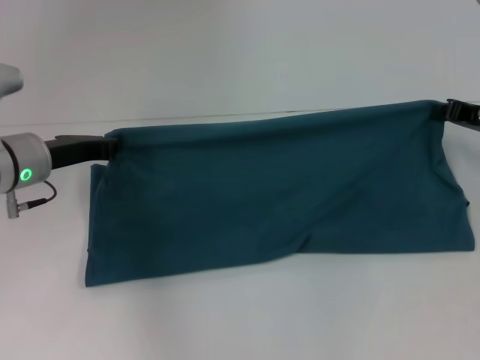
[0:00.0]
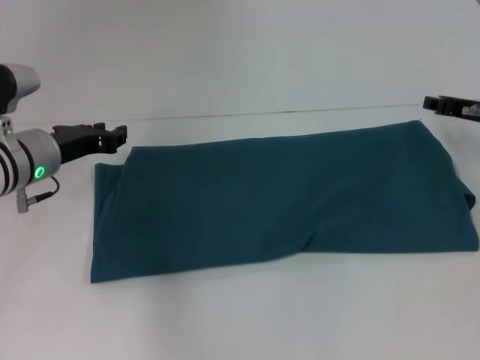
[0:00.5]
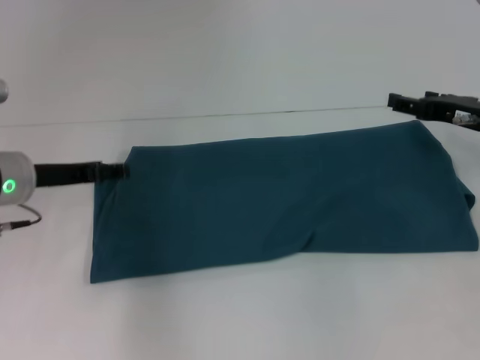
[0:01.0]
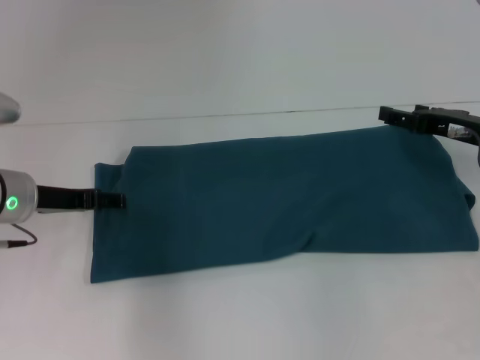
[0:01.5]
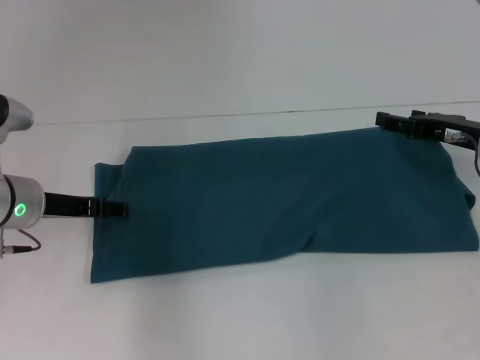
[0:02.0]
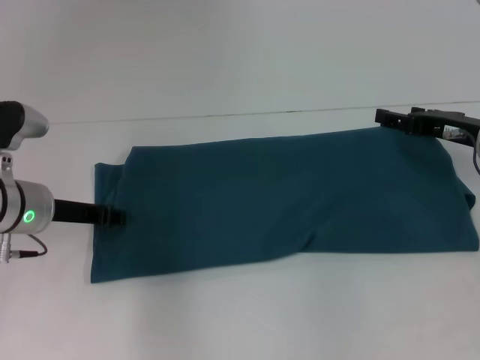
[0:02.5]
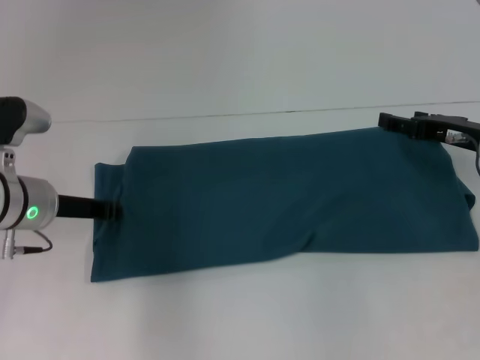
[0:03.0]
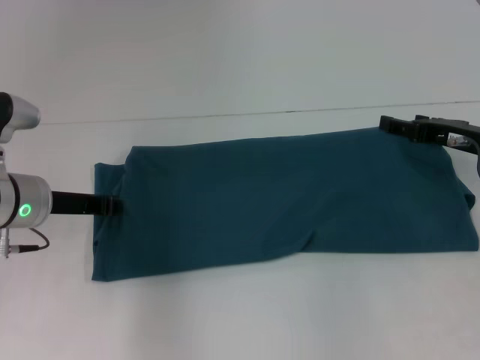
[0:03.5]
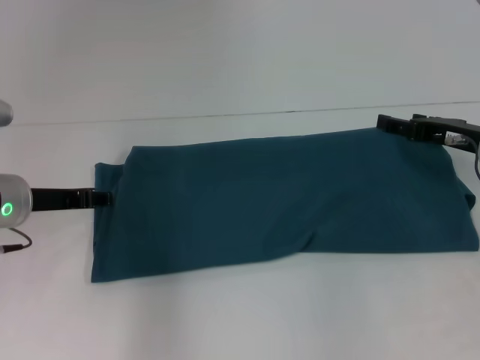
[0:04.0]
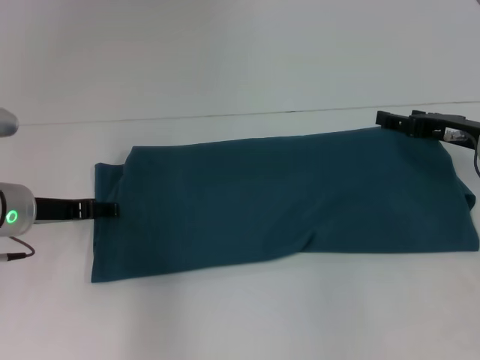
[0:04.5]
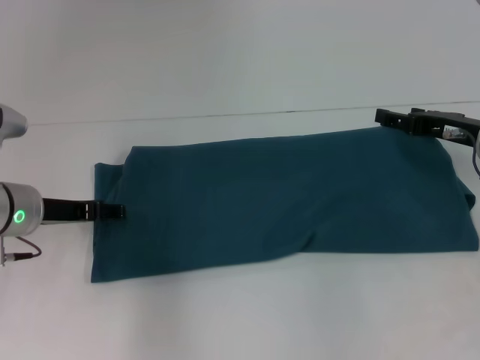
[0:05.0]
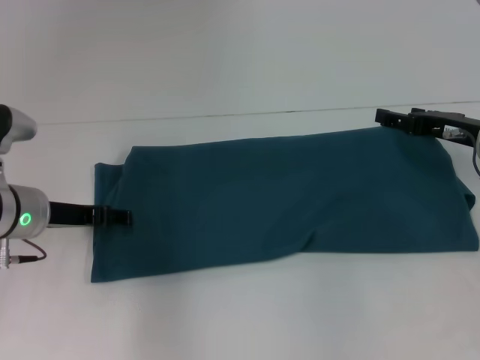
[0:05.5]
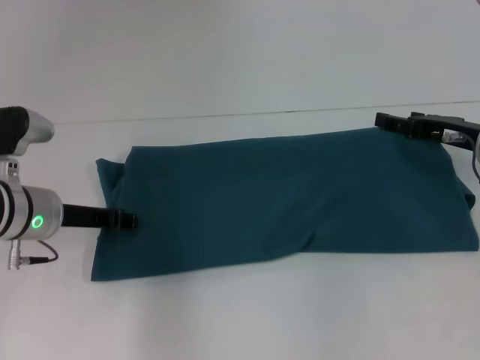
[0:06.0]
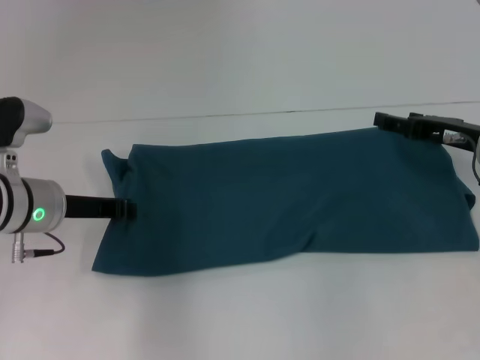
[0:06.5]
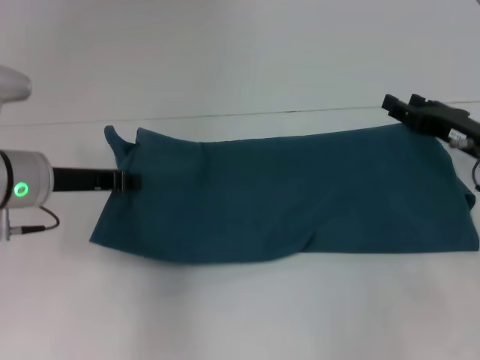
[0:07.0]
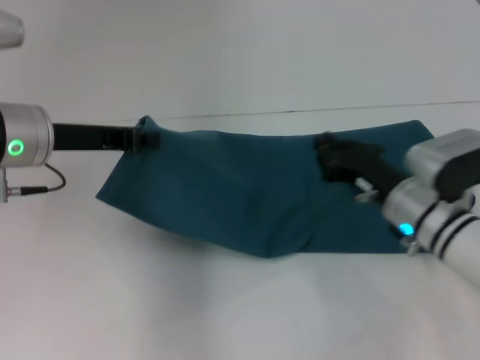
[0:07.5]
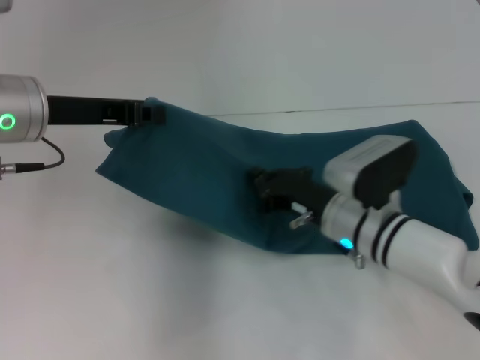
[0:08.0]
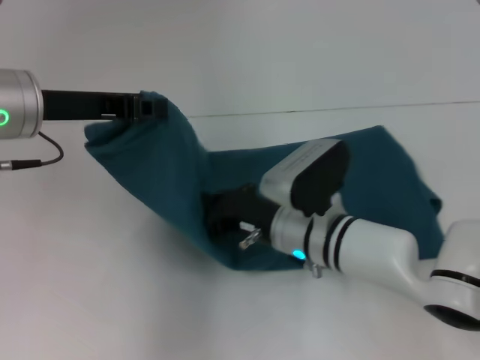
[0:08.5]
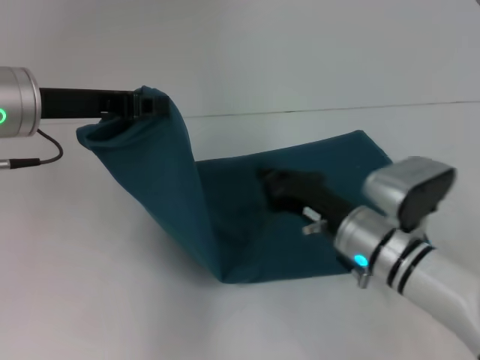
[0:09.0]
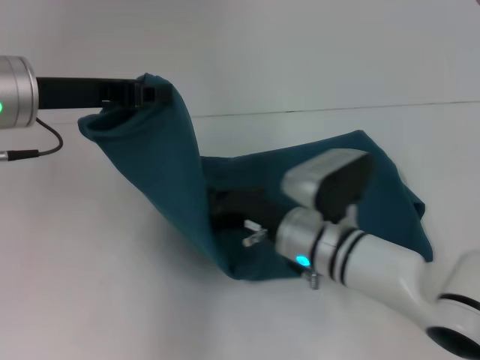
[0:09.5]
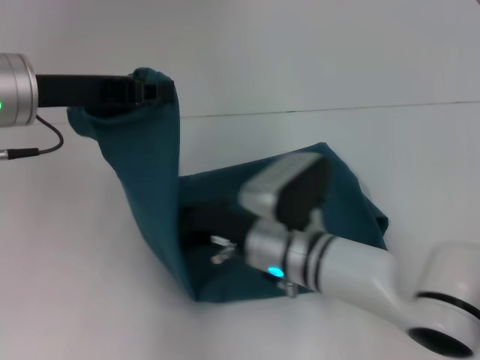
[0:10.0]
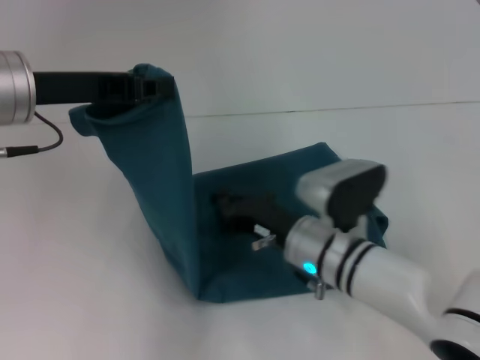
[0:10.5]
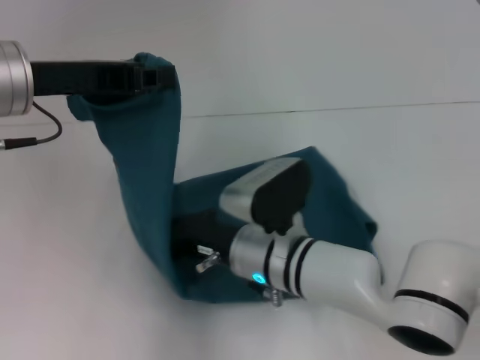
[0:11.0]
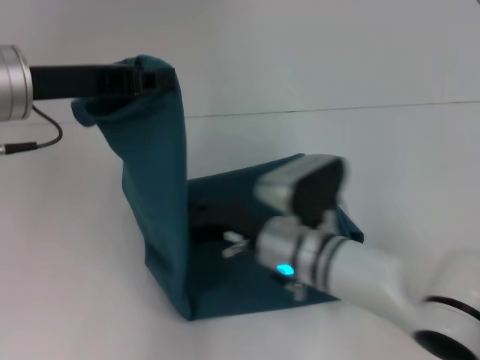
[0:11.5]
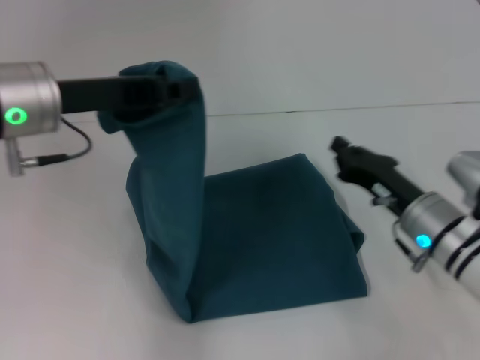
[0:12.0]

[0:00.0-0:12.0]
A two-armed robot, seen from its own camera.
Step, 0:01.0 to 0:11.5: Press the middle of the clothes with your right hand.
0:00.0 to 0:02.0: The left gripper opens up. Meanwhile the right gripper opens up.
0:02.0 to 0:04.0: The left gripper closes.
0:04.0 to 0:06.0: There are only small adjustments of the grippers.
0:06.0 to 0:08.0: The right gripper heads to the left and downward, covering approximately 15 cm, and closes its fingers. The left gripper shifts some 15 cm upward, and closes up.
0:08.0 to 0:10.0: The right gripper swings left and right, approximately 10 cm each way, with 2 reversals.
0:10.0 to 0:12.0: The right gripper moves left and right over approximately 15 cm, changing direction 2 times.

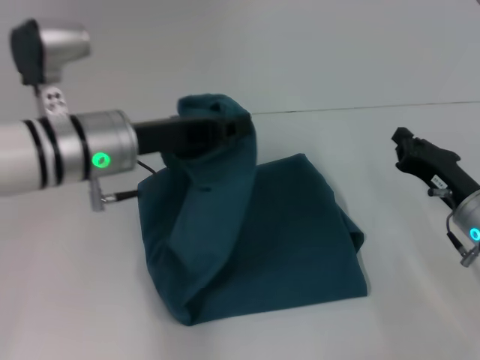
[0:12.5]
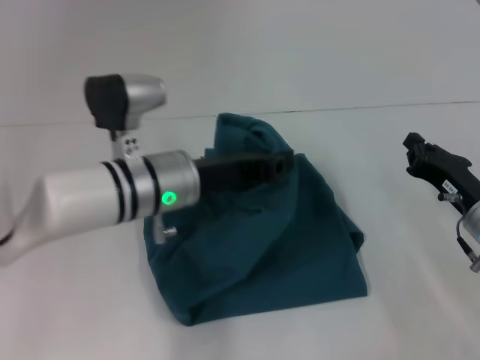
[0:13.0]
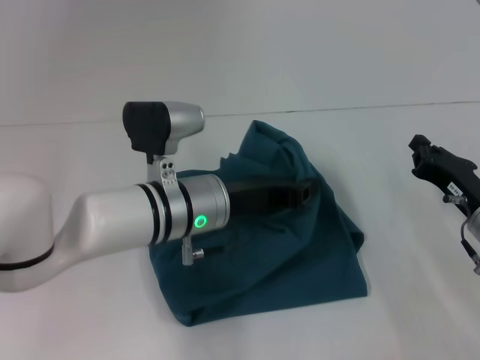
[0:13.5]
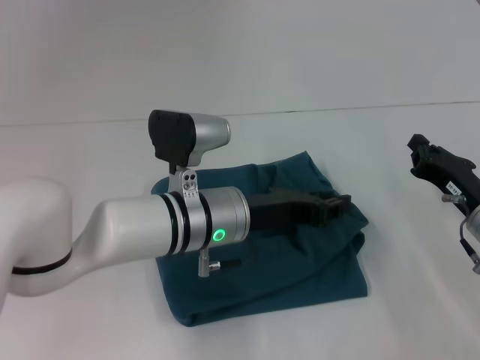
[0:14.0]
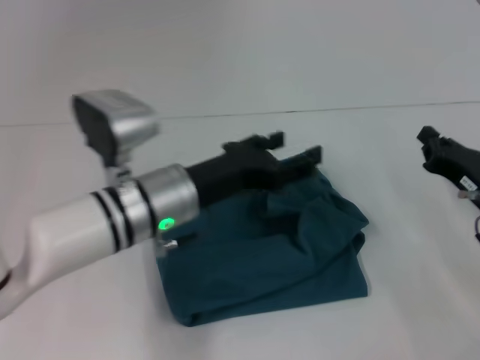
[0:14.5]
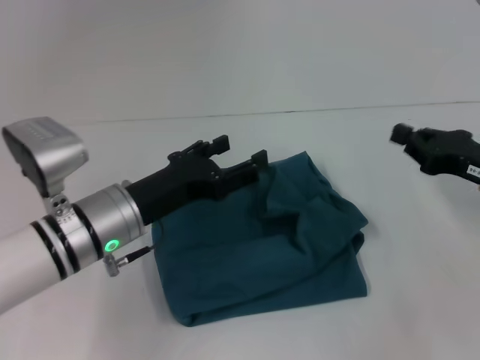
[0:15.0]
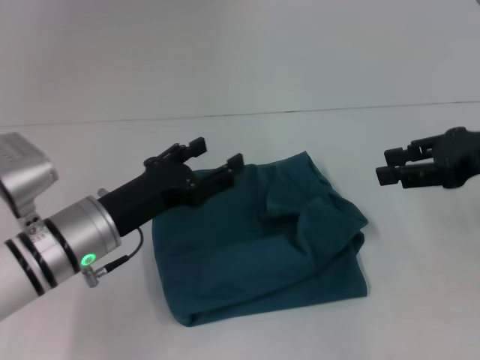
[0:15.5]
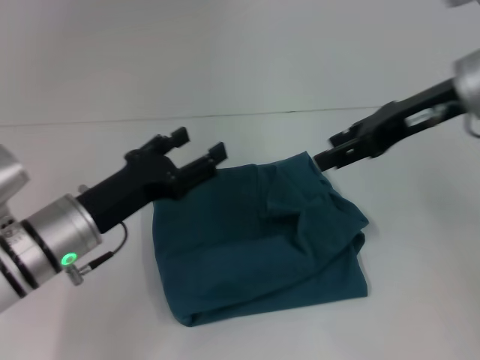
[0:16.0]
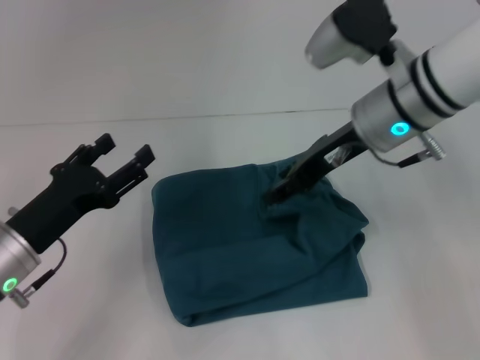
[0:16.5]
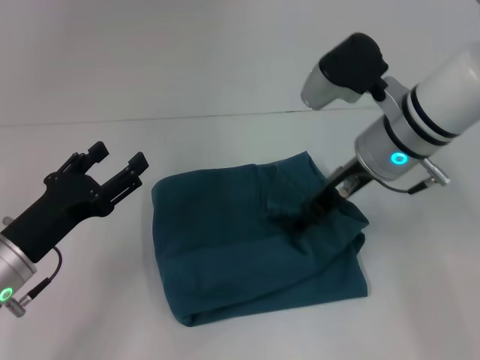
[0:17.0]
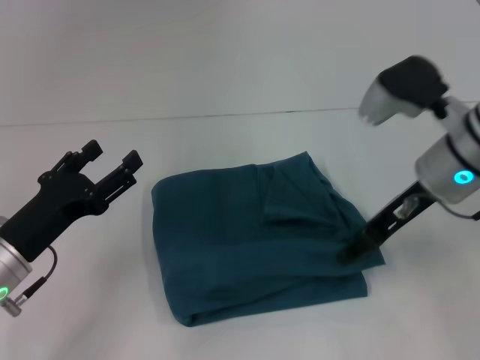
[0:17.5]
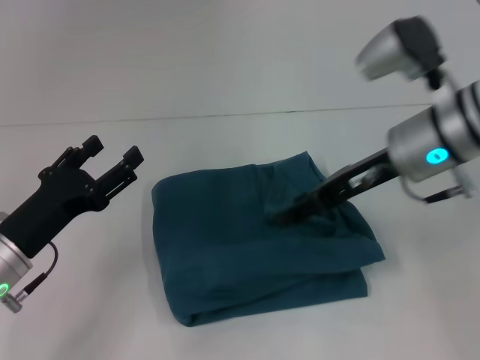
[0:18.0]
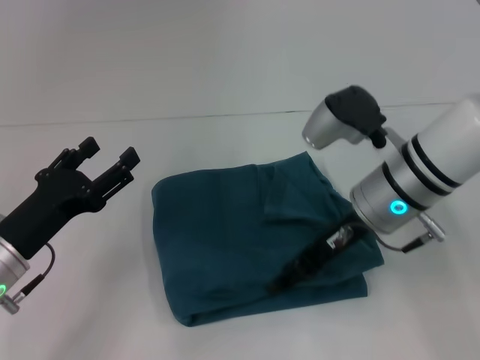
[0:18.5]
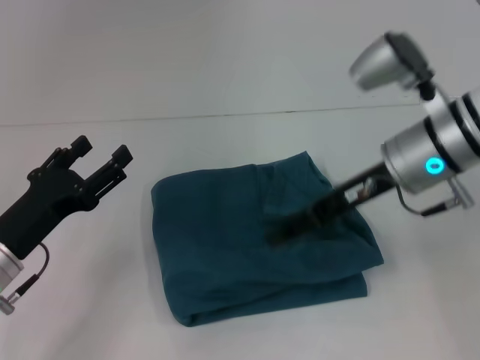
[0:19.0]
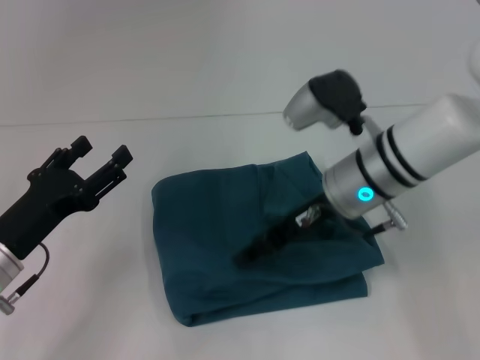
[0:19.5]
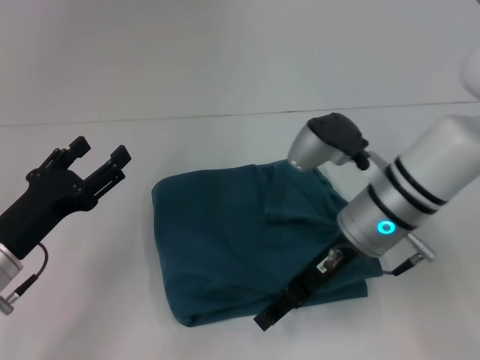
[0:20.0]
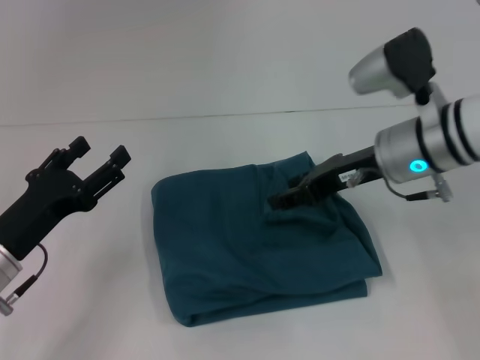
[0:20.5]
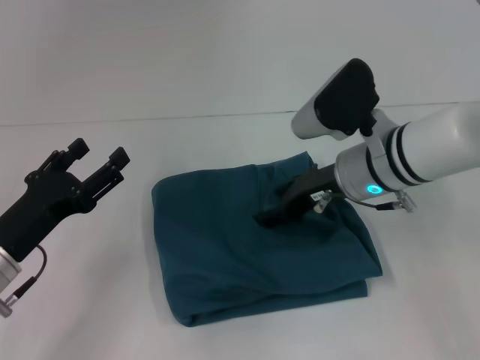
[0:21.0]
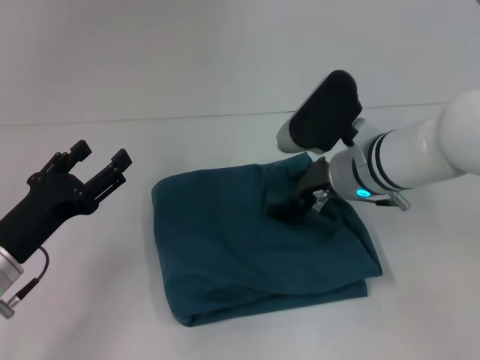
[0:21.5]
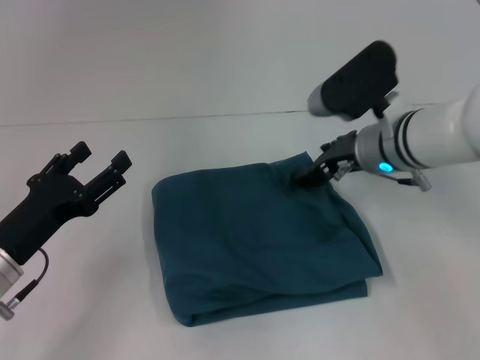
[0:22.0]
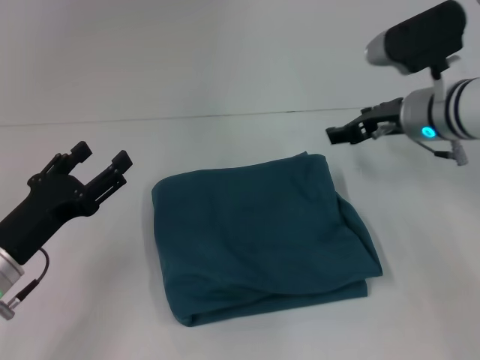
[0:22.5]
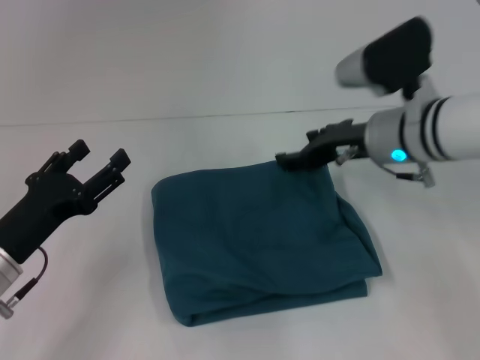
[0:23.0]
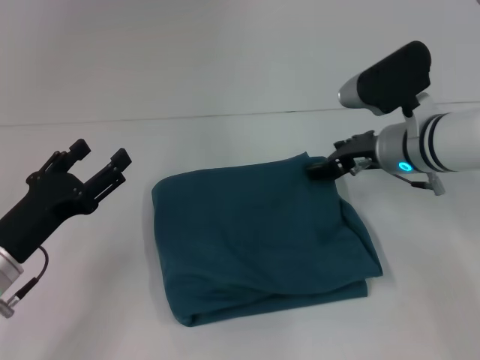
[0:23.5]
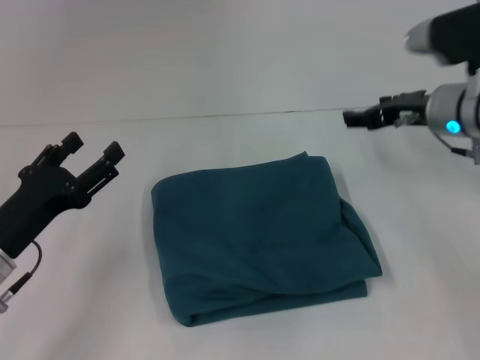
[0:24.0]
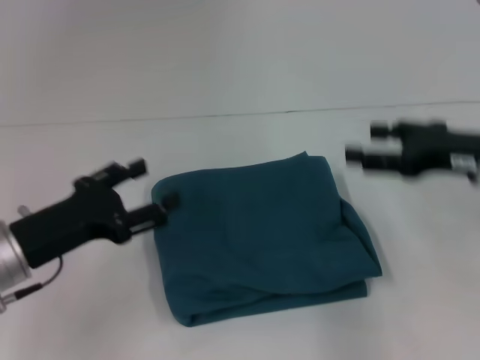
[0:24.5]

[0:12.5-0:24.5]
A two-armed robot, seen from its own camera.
Step, 0:12.5 to 0:14.0: Fold the clothes to the left.
0:12.5 to 0:14.5: The left gripper shifts about 5 cm downward, and opens.
0:14.5 to 0:16.5: The left gripper goes some 15 cm to the left. Meanwhile the right gripper goes some 25 cm upward, to the left and forward, and opens its fingers.
0:16.5 to 0:18.5: The right gripper travels downward by approximately 5 cm.
0:22.5 to 0:24.5: The right gripper travels backward and to the right by about 10 cm.

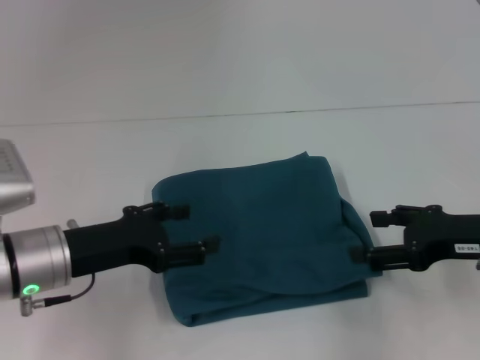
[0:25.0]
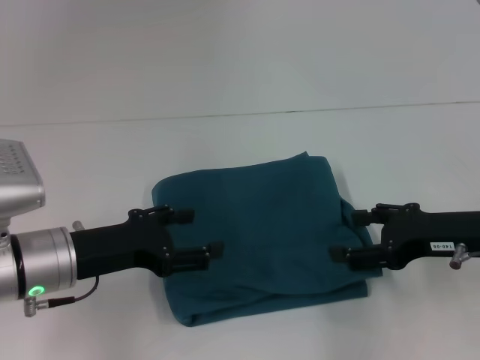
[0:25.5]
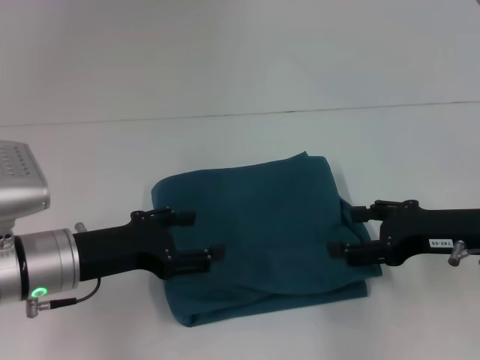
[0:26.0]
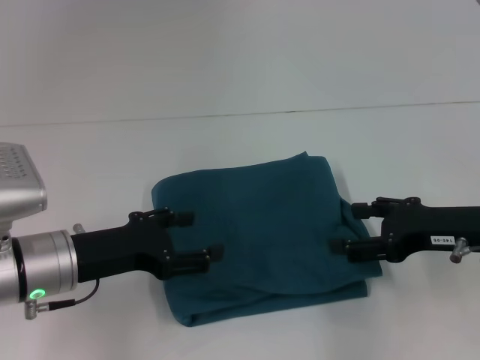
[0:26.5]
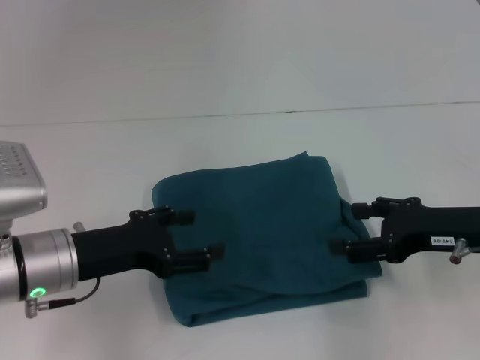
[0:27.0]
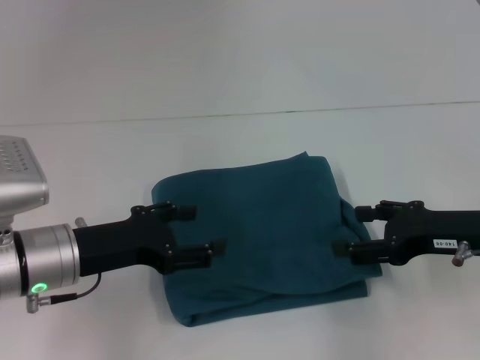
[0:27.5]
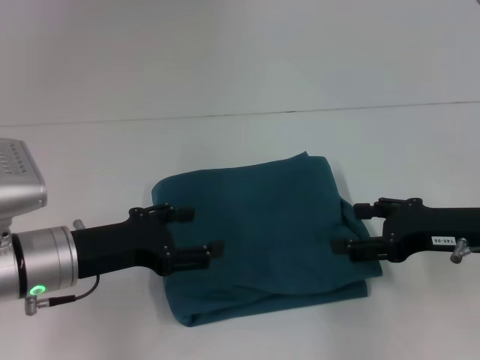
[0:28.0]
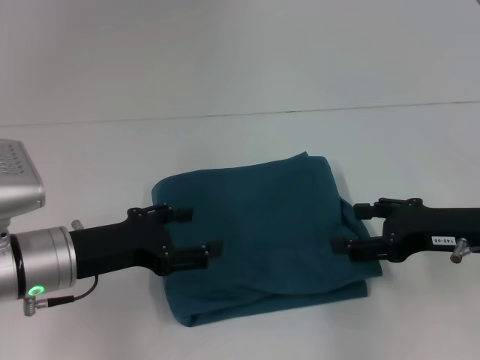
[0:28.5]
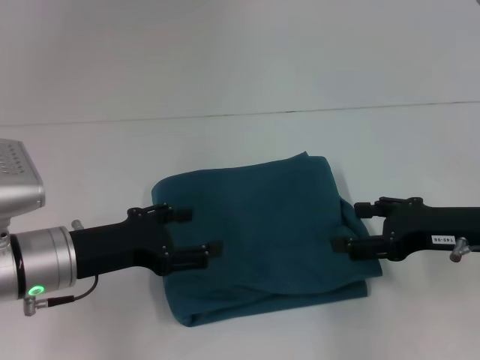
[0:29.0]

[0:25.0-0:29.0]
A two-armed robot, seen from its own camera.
0:25.0 to 0:27.0: The grippers move only a little.
0:27.0 to 0:29.0: Both grippers stay put.
